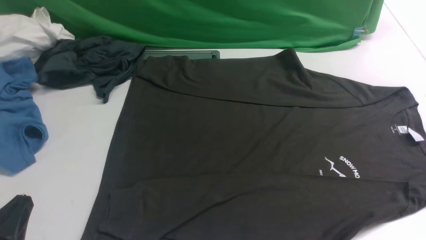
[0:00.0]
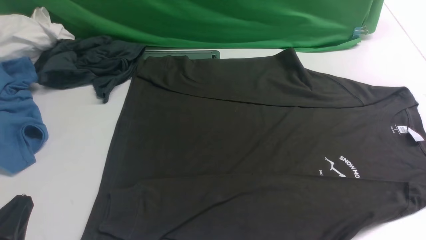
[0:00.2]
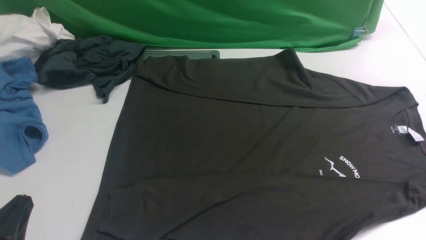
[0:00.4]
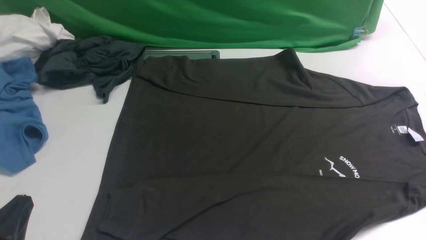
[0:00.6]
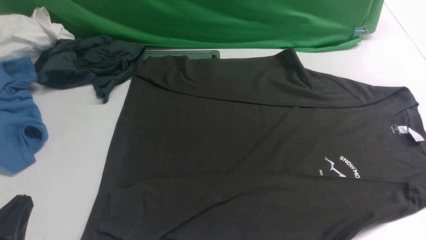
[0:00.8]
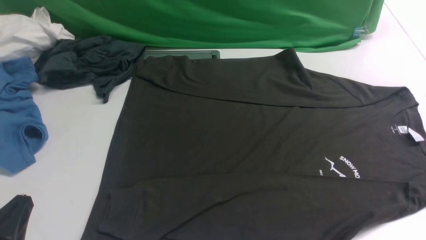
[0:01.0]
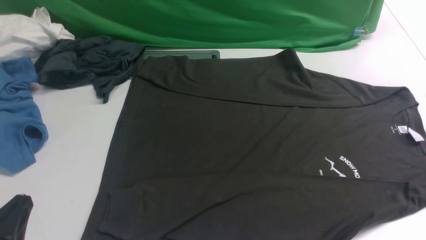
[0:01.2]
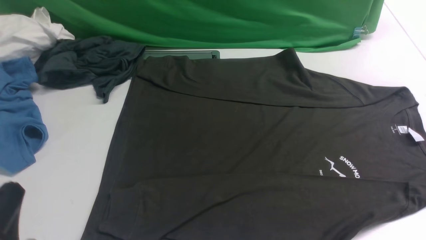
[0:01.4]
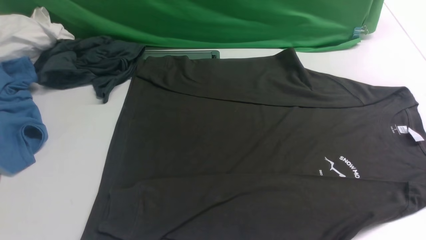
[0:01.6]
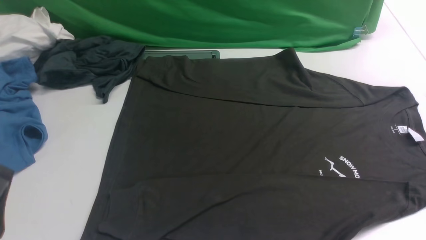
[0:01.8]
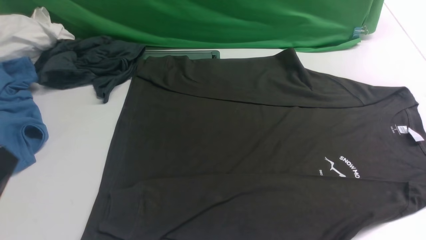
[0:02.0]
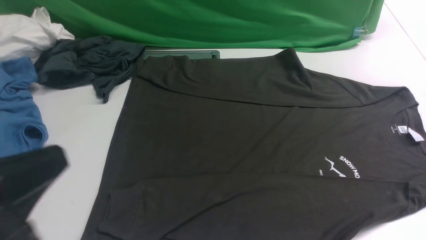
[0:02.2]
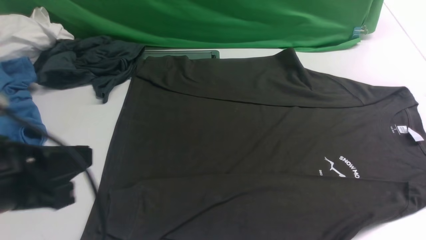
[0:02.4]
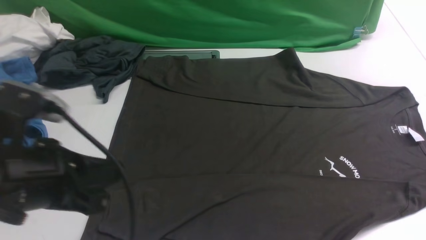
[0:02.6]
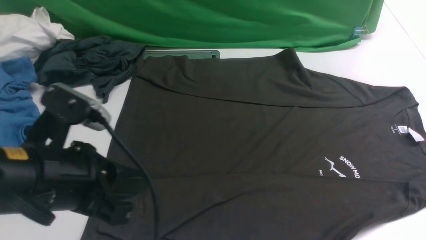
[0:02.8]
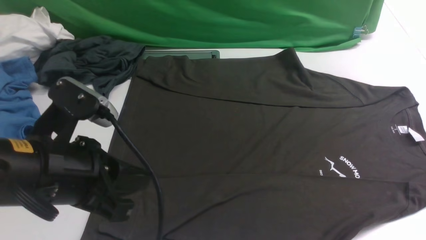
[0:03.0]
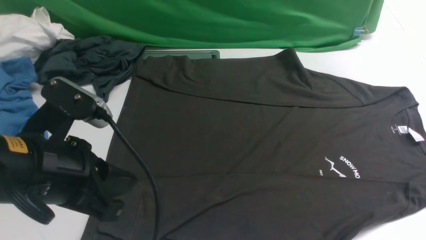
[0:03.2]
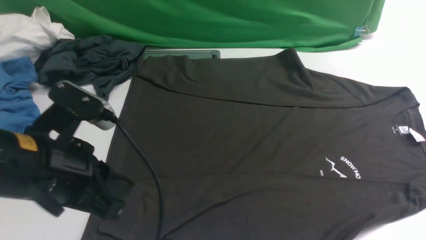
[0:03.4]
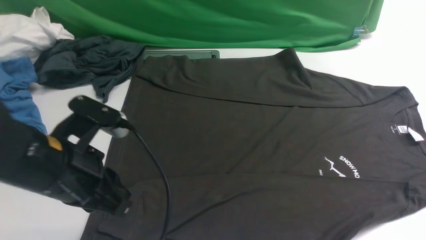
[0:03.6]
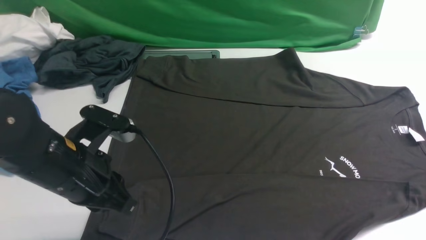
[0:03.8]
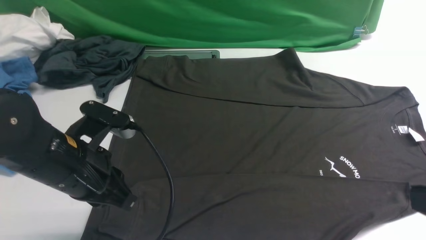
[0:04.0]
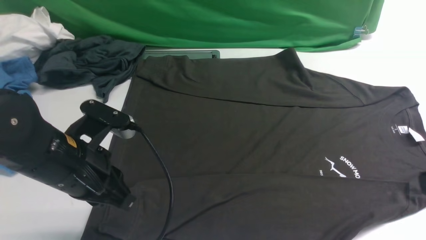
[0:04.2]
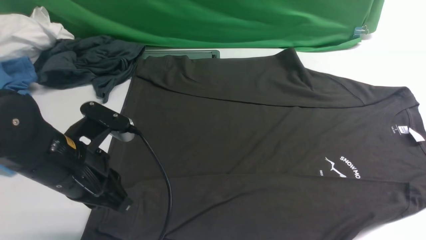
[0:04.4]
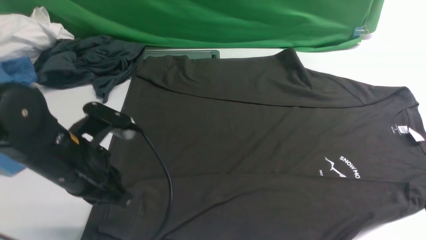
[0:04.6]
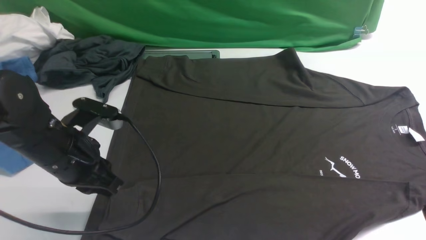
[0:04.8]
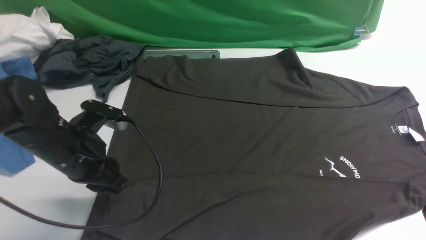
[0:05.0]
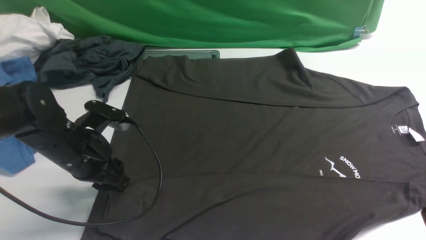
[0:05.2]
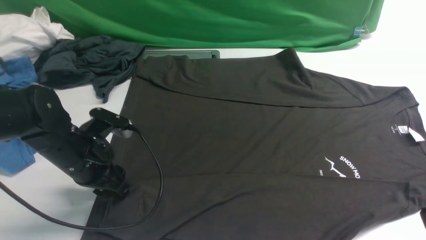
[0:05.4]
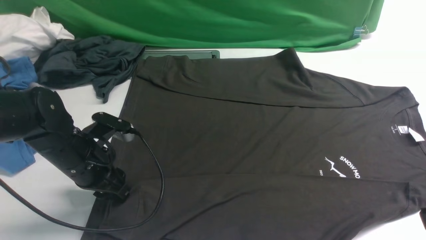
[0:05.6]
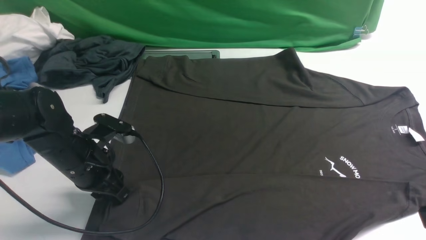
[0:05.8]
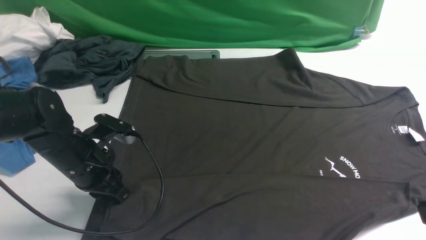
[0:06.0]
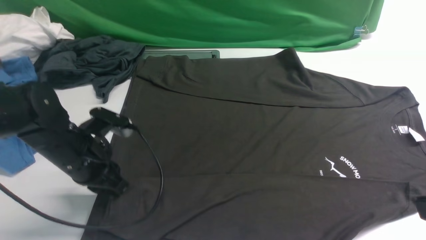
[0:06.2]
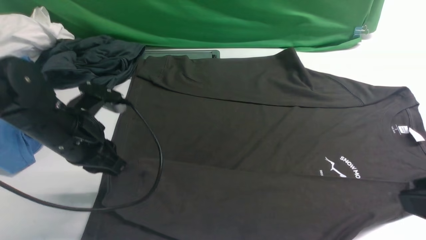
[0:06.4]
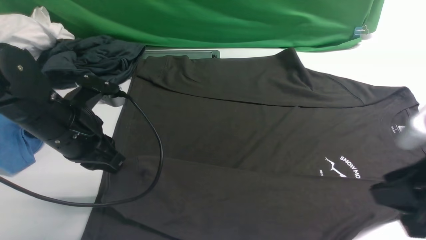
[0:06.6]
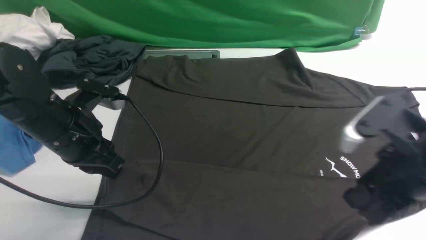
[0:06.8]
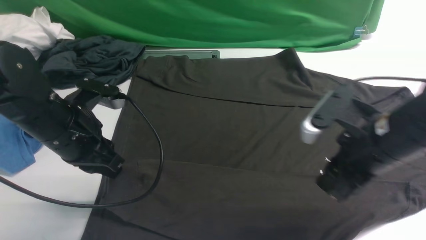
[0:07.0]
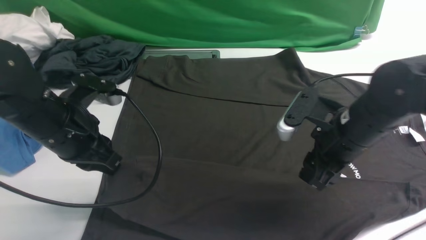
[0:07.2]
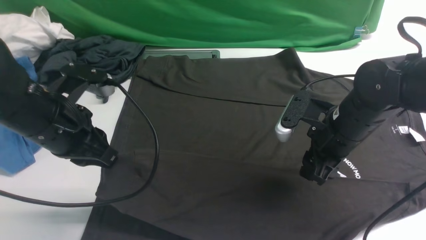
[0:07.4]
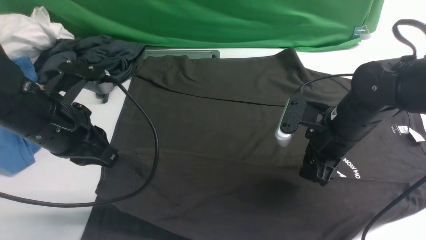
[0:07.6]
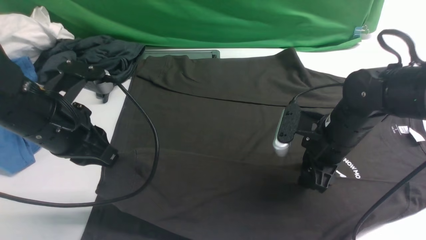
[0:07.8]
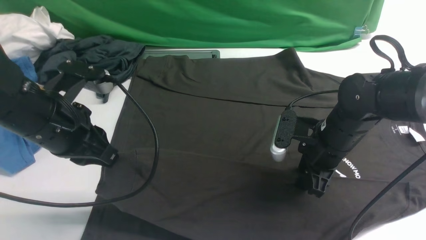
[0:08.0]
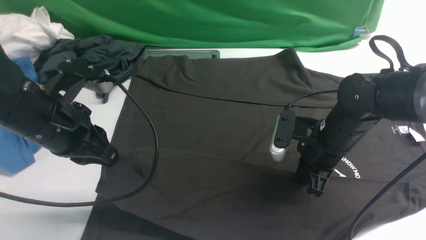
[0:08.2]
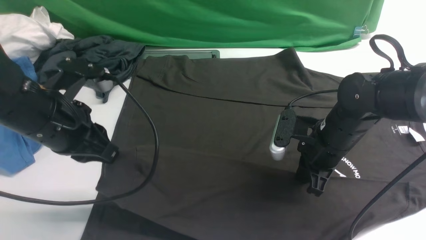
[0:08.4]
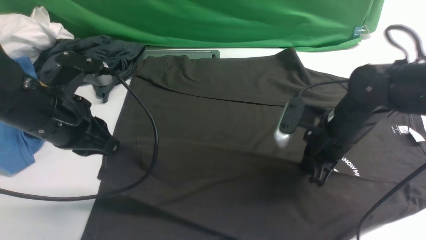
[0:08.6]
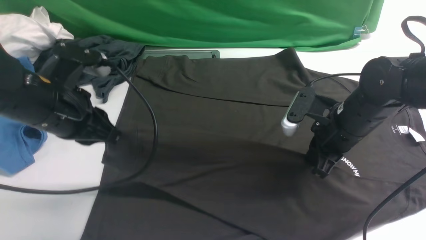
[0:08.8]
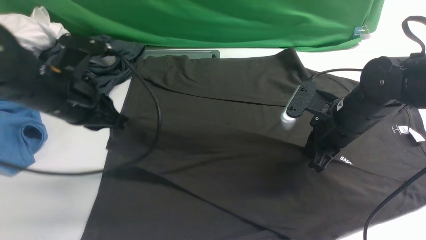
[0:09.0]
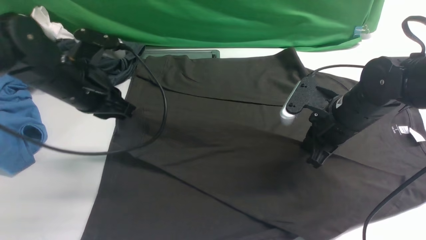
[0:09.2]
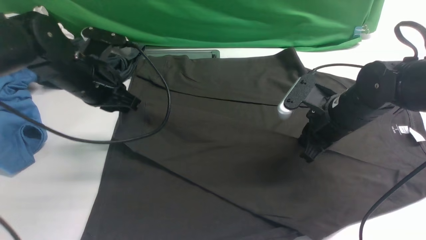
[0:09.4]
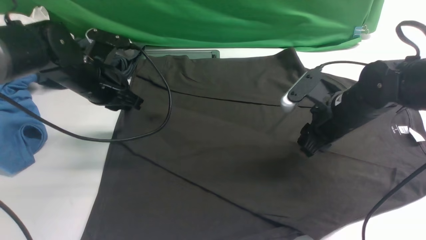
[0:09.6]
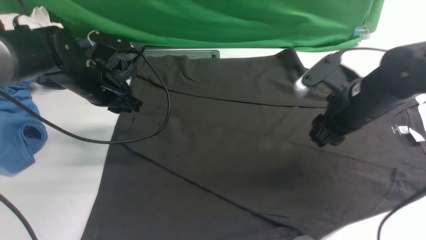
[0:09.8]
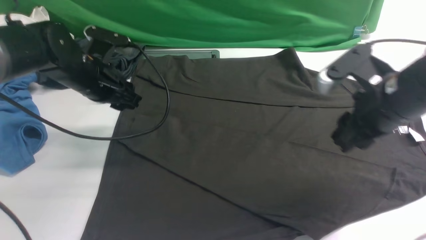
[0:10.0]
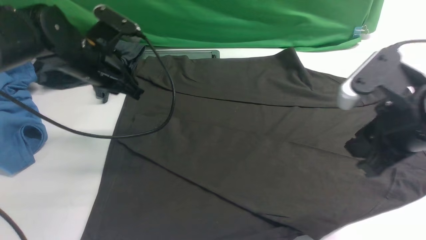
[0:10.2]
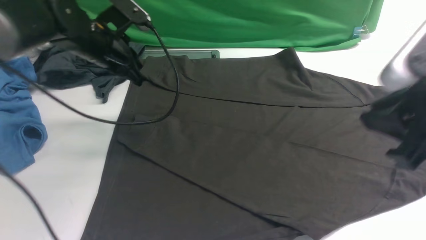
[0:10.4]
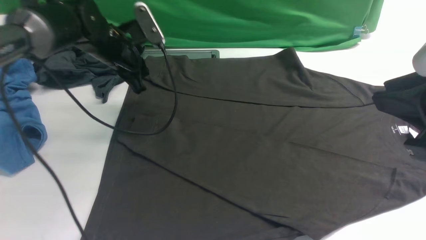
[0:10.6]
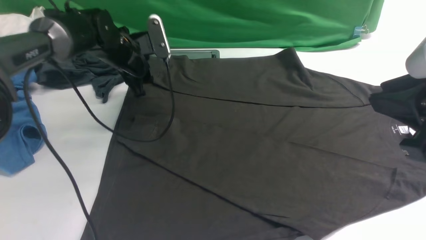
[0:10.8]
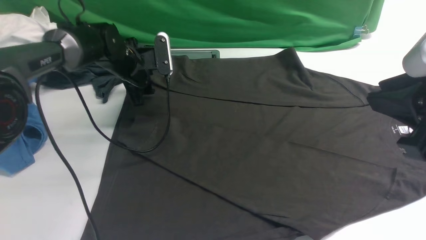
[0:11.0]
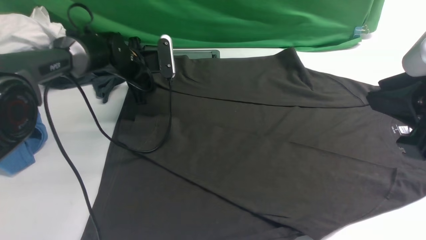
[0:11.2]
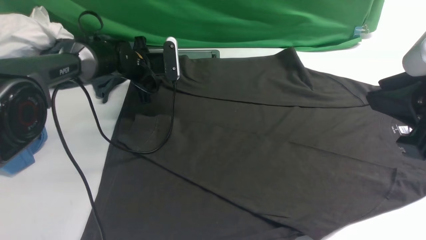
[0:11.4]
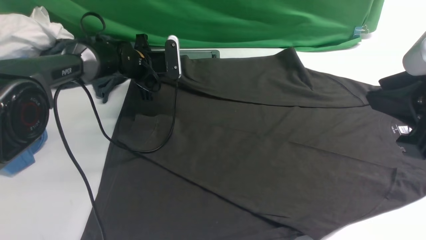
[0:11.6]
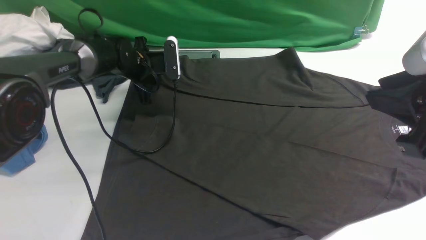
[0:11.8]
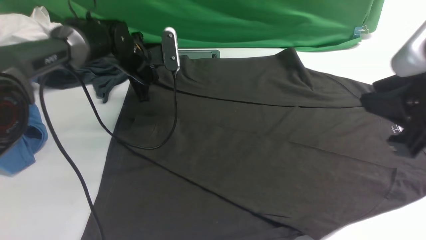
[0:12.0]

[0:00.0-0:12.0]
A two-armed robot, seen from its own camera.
Step, 0:00.0 to 0:06.4: use the left arm to clamp the cuff closest to it.
Step, 0:06.6 to 0:09.8: use the left arm to drag and place the cuff at the centered position on the left edge of the fabric.
0:01.6 to 0:03.0: The left gripper goes some 15 cm forward, to the right and upward.
0:03.0 to 0:04.4: The left gripper travels downward and forward by approximately 10 cm.
0:04.4 to 0:06.0: The left gripper is displaced downward and forward by approximately 10 cm, and opens, then closes again.
0:06.0 to 0:07.6: The right gripper travels forward and downward by roughly 25 cm. The left gripper shifts some 10 cm upward.
0:07.6 to 0:09.0: The left gripper is displaced forward by roughly 5 cm. The right gripper closes up.
0:09.0 to 0:10.4: The left gripper is displaced forward by roughly 10 cm, and opens and closes again. Meanwhile the right gripper goes some 20 cm upward and backward, and opens and closes again.
0:10.4 to 0:12.0: The left gripper moves downward and forward, about 10 cm, and opens, then closes once more.

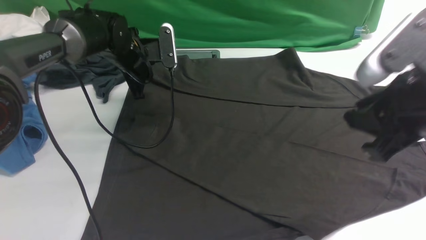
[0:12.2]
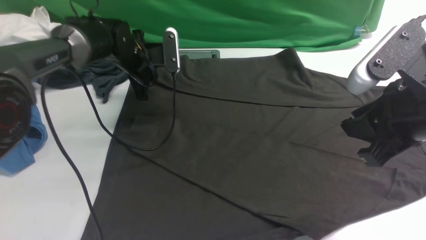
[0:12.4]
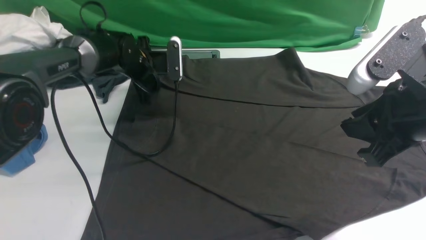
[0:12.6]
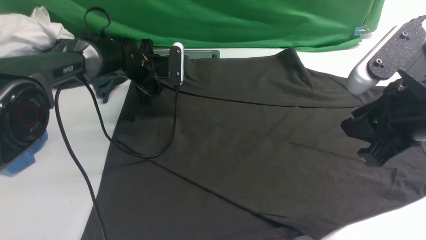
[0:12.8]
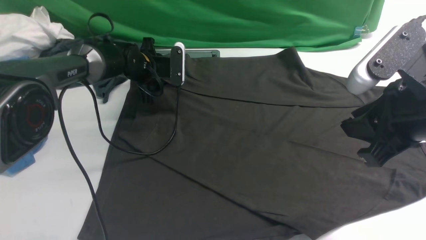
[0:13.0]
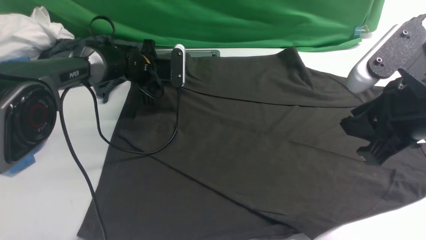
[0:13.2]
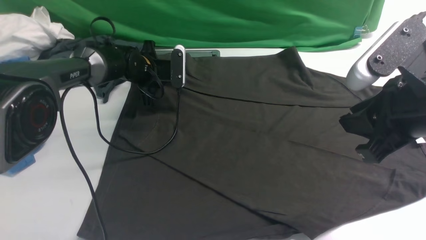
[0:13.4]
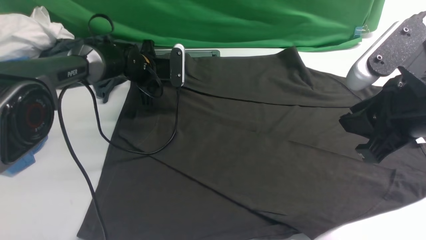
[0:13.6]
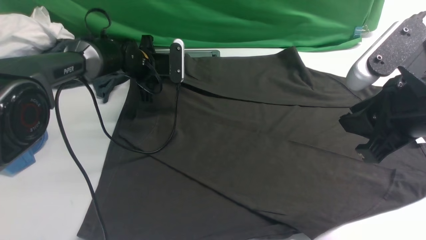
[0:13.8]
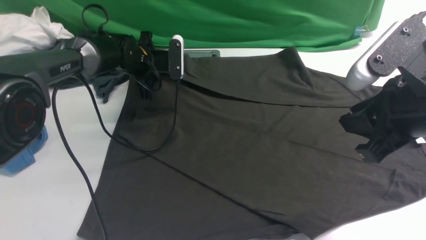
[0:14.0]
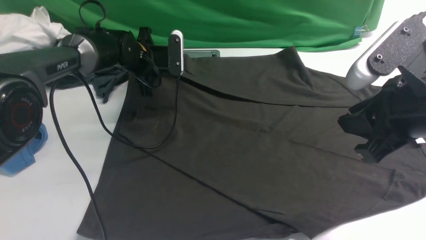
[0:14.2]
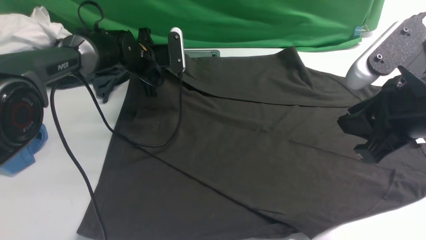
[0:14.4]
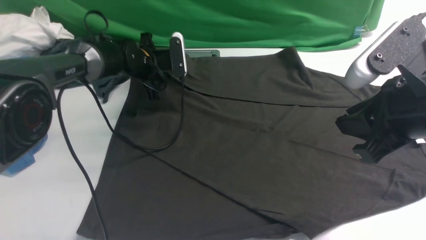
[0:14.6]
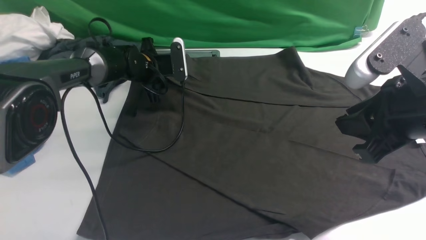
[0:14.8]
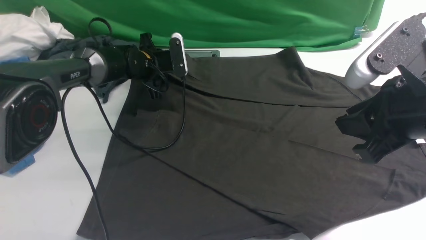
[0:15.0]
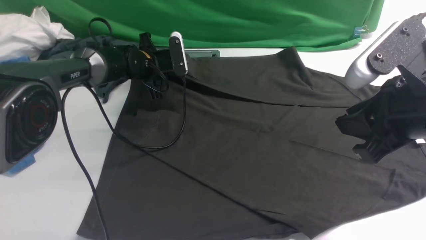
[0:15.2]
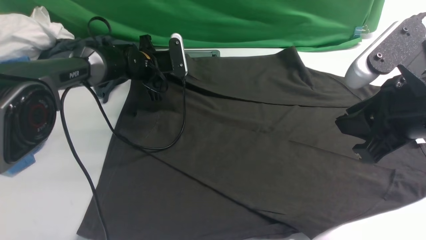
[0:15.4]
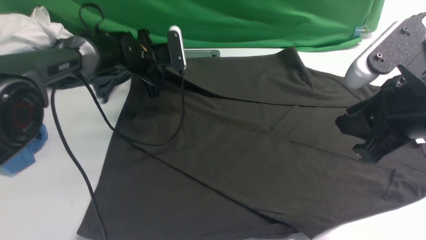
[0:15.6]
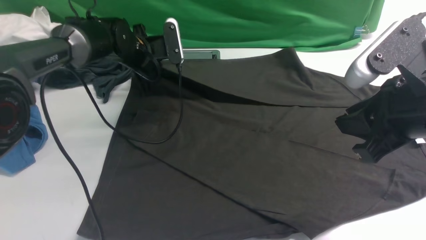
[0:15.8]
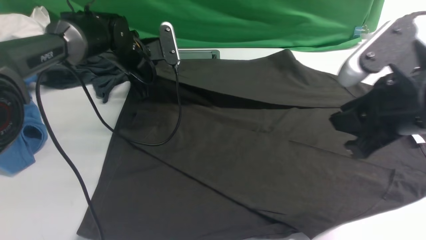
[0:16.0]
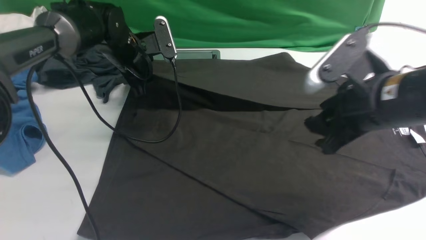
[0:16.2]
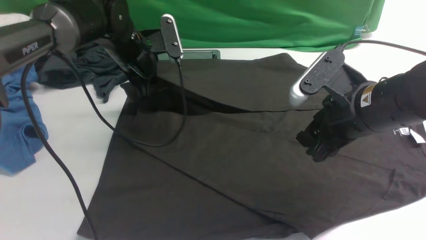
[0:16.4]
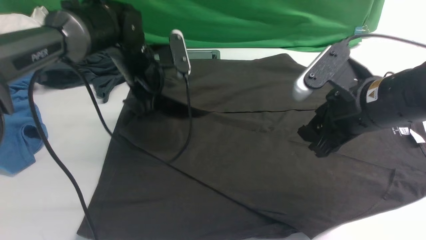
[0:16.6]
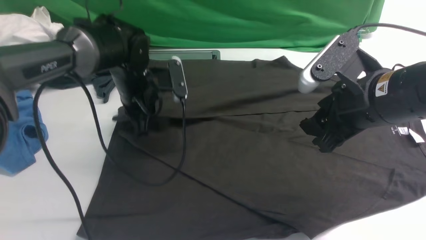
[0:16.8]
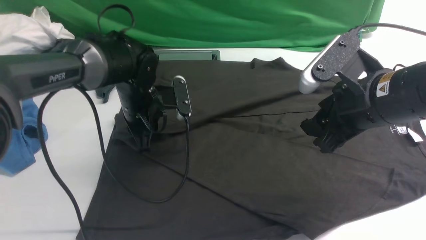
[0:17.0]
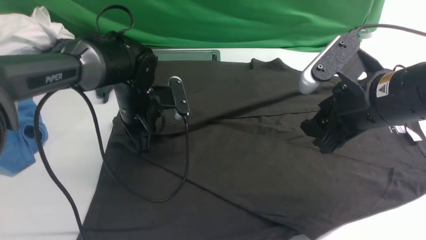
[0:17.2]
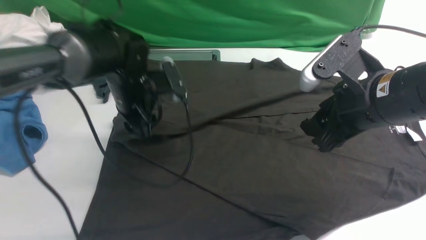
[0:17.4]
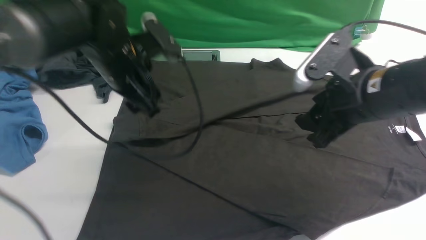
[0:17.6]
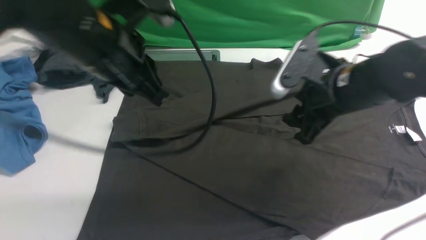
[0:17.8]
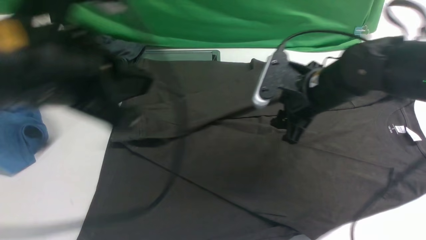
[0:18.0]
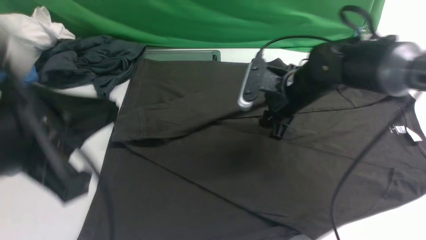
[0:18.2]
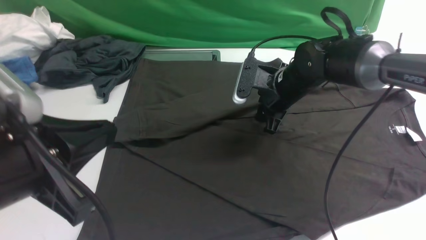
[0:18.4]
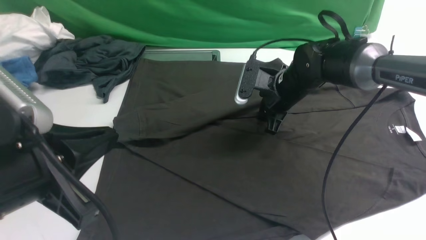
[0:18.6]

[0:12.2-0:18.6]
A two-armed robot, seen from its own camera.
Step, 0:12.2 to 0:15.4: use the left arm to clamp the cuff farthest from it.
Step, 0:15.6 to 0:17.6: use the left arm to drag and drop the cuff onto the cuff closest to the left arm.
0:12.2 to 0:13.8: The left gripper opens and closes again.
0:13.8 to 0:15.4: The left gripper opens and closes again.
0:15.4 to 0:17.0: The left gripper shifts approximately 10 cm backward. Meanwhile the right gripper shifts approximately 5 cm forward, and opens.
0:17.0 to 0:18.6: The left gripper shifts about 30 cm backward and upward, and opens and closes again. The right gripper moves forward and downward, some 20 cm.
